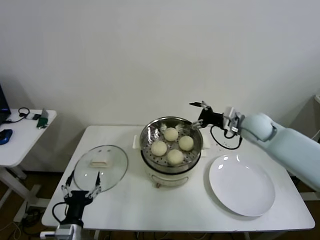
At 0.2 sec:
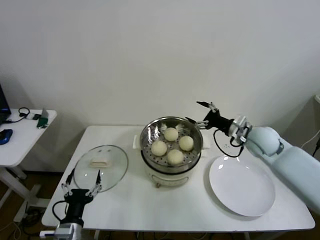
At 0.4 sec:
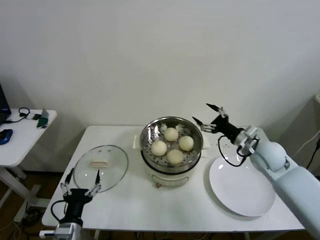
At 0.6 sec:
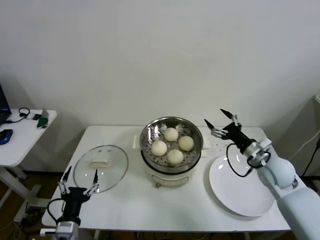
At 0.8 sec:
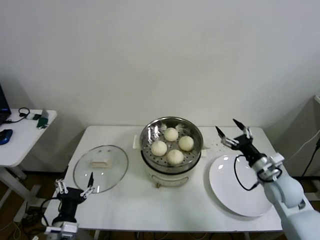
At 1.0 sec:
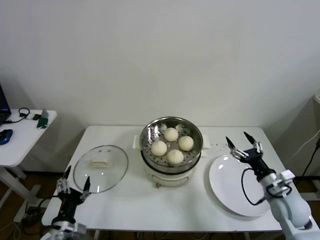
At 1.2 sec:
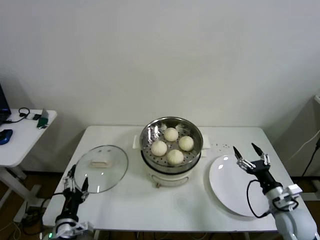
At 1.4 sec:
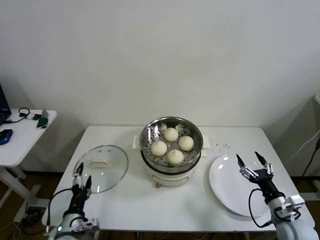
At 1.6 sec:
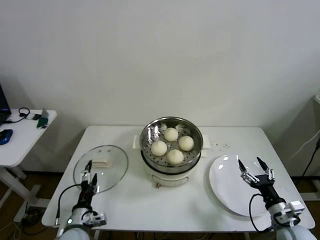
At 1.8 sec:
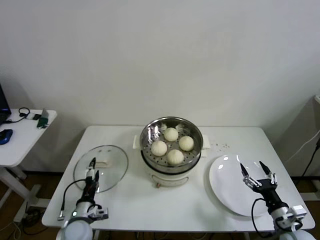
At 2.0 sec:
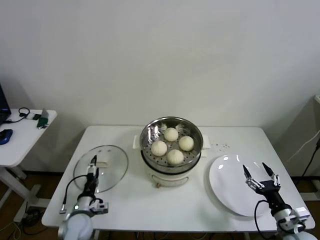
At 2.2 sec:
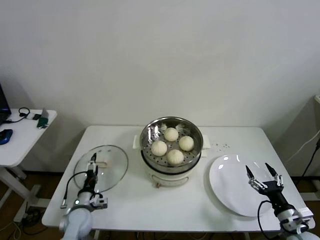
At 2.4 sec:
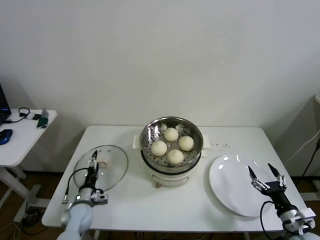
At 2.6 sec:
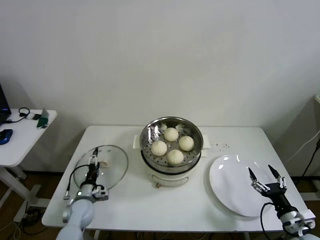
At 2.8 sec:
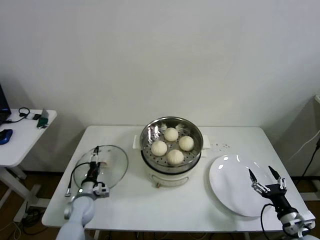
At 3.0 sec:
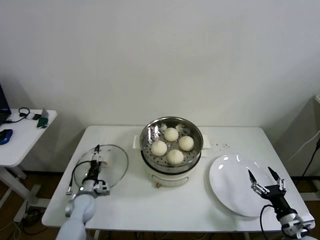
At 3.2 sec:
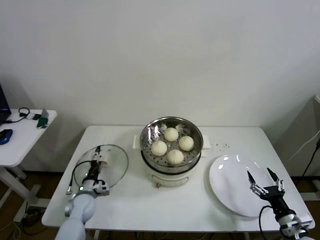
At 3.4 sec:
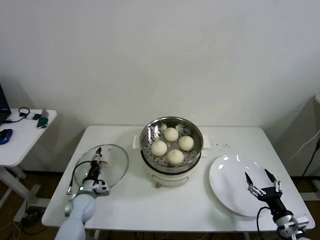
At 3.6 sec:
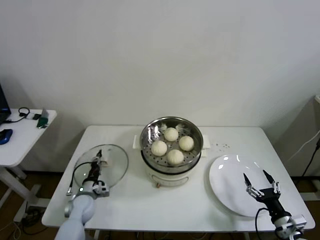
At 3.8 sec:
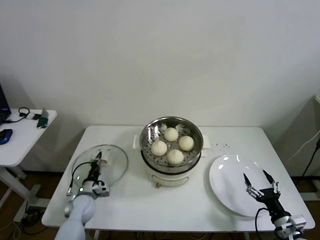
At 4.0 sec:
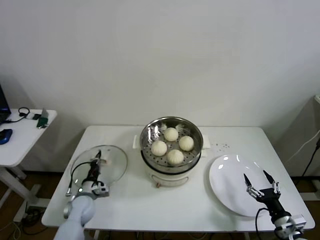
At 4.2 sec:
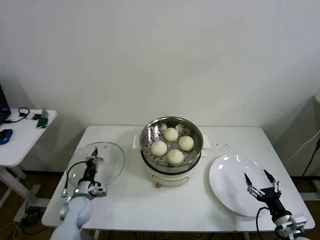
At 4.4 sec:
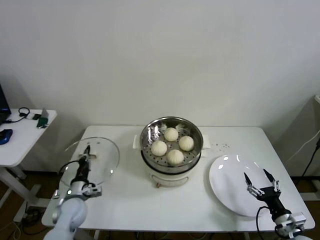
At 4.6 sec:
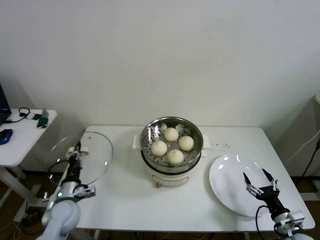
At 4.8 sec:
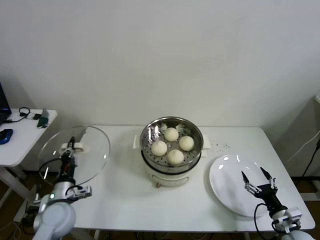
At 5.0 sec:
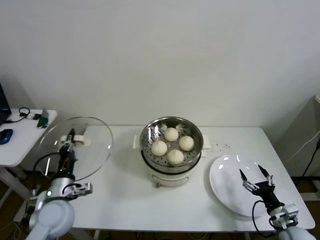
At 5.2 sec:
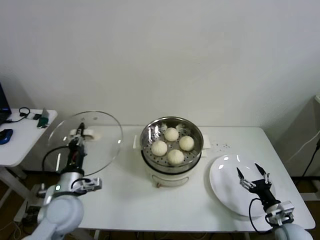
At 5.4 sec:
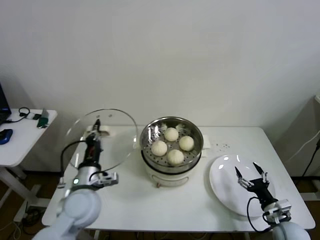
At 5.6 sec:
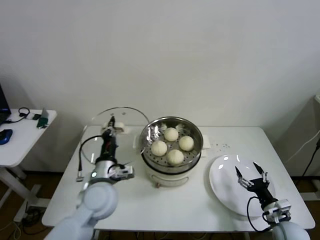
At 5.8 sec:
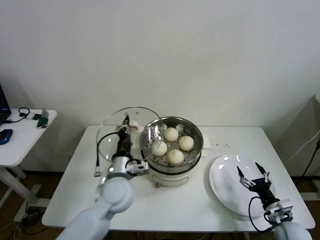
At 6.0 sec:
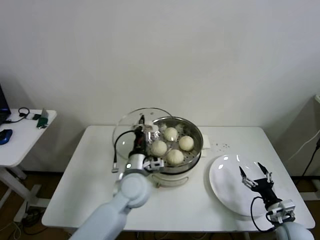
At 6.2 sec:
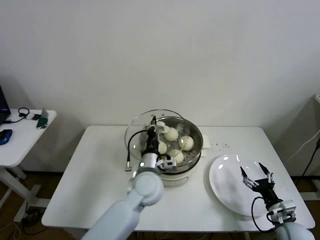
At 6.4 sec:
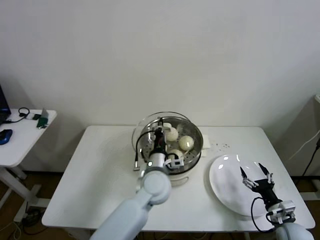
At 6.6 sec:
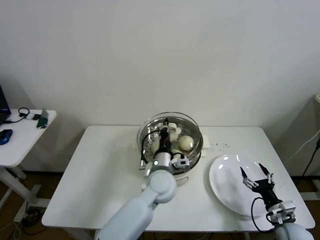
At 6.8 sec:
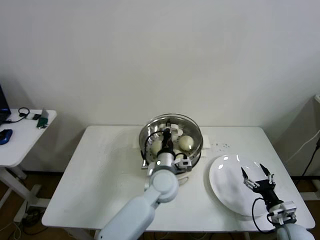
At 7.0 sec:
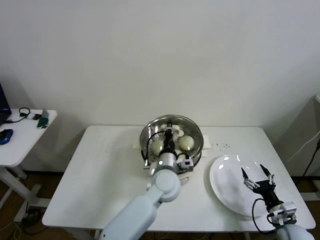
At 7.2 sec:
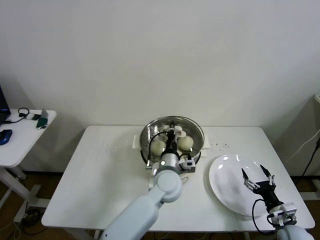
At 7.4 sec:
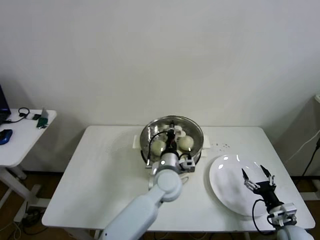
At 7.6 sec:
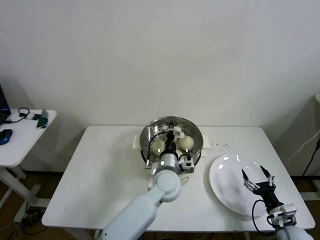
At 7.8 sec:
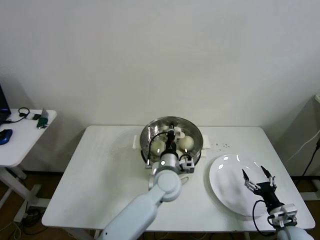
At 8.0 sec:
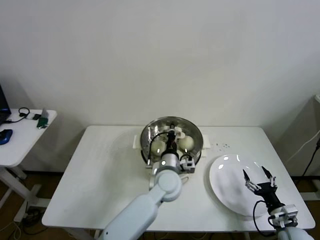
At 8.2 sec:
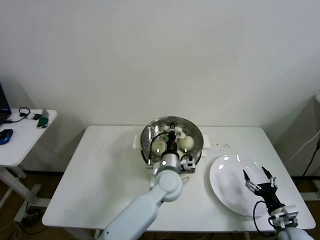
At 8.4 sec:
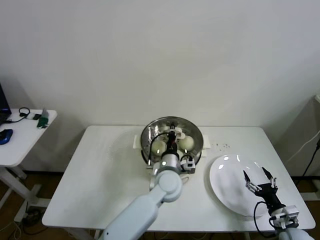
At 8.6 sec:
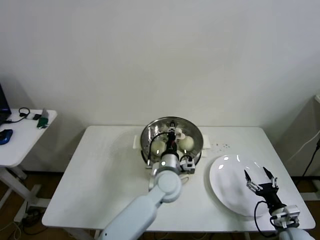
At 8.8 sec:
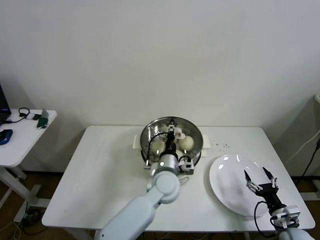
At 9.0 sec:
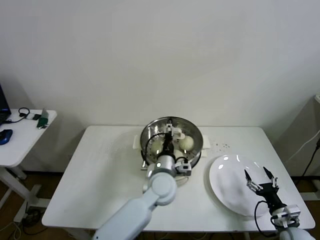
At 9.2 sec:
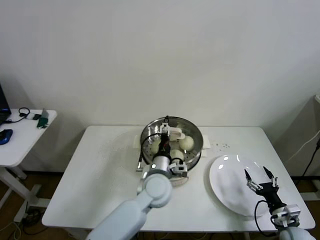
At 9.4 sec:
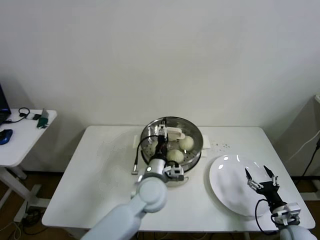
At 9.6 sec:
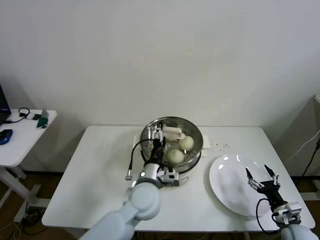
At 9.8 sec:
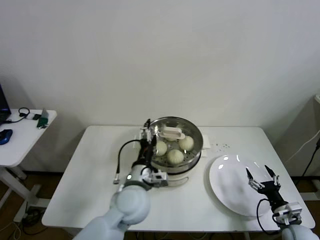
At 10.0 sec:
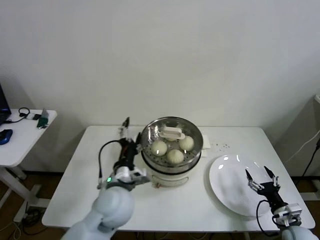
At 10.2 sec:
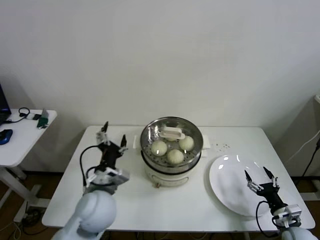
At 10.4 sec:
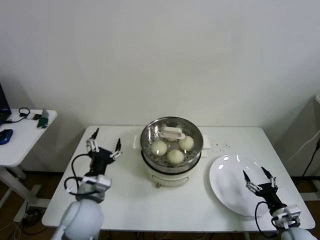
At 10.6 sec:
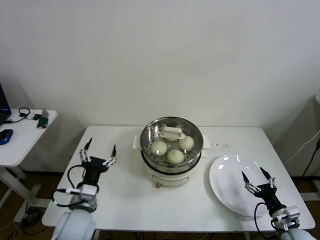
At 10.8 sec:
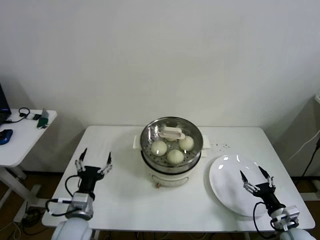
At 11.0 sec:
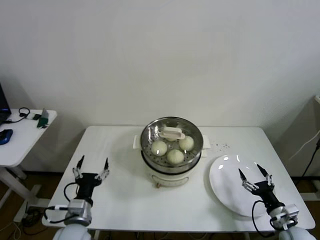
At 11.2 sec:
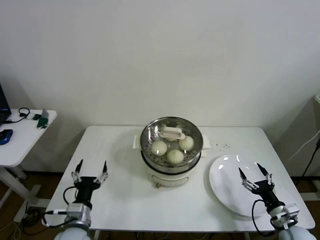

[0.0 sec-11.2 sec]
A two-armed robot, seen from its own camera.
Step, 0.0 sec to 3.6 sec: Grasp the pot lid with left gripper.
Step, 4.0 sec to 8.8 sec: Place the pot lid on the steamer with left gripper.
0.0 sec to 1.6 sec: The right gripper shifts approximately 35 cm backward and downward; the left gripper heads forward and downward, covering some 10 cm.
1.6 sec to 3.2 sec: The left gripper goes some 15 cm forward and downward.
3.2 sec to 4.8 sec: The left gripper shifts approximately 15 cm upward and backward, and closes.
4.8 sec to 6.4 sec: The left gripper moves to the right, approximately 30 cm.
6.4 sec to 8.0 sec: The grippers stay close to where they were, moving slightly.
8.0 sec to 9.6 sec: The left gripper goes approximately 10 cm to the left and backward, and opens.
9.6 sec to 11.2 sec: The left gripper travels to the left and backward by approximately 25 cm.

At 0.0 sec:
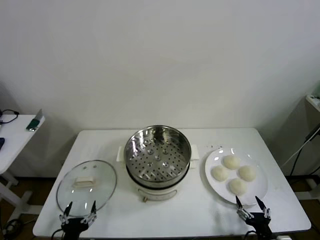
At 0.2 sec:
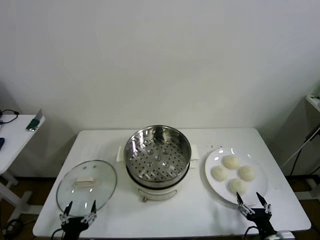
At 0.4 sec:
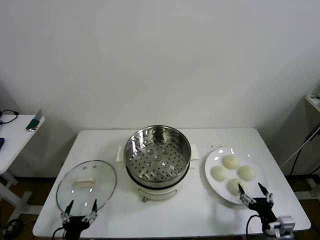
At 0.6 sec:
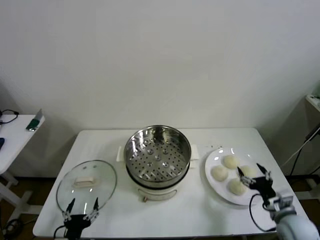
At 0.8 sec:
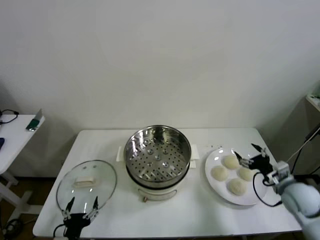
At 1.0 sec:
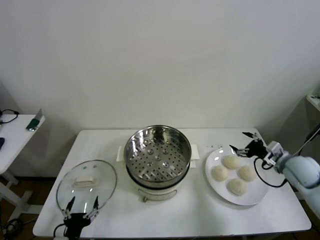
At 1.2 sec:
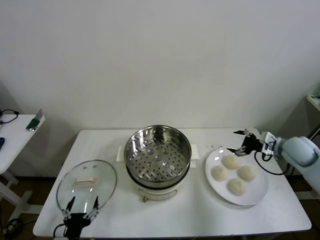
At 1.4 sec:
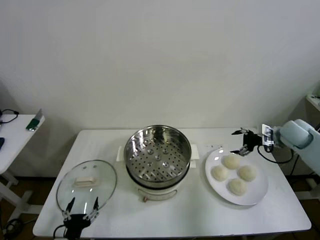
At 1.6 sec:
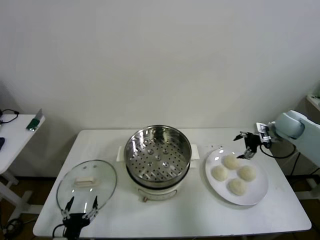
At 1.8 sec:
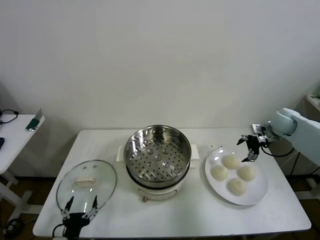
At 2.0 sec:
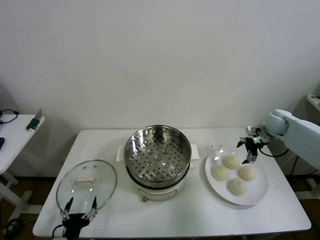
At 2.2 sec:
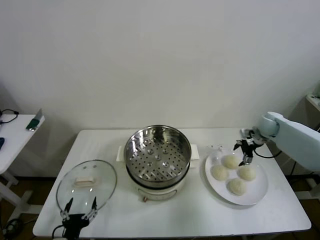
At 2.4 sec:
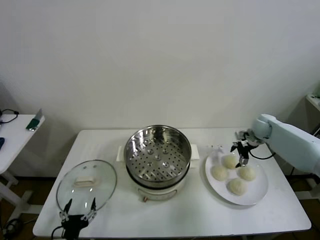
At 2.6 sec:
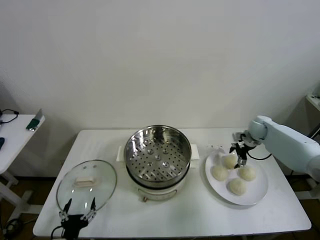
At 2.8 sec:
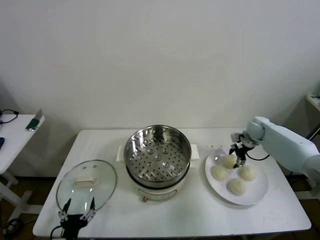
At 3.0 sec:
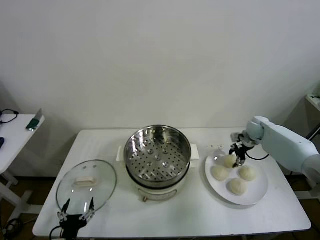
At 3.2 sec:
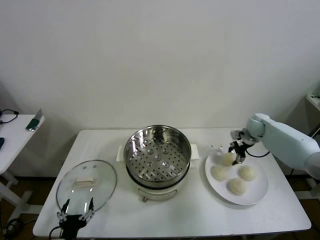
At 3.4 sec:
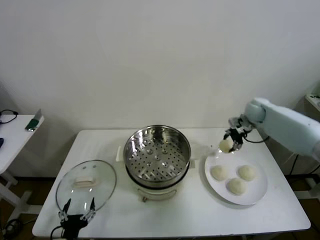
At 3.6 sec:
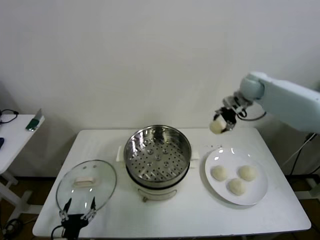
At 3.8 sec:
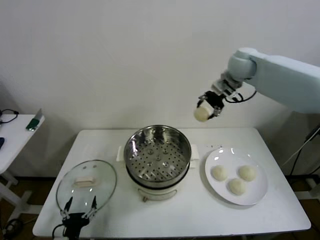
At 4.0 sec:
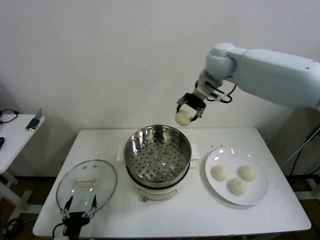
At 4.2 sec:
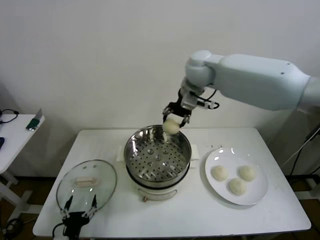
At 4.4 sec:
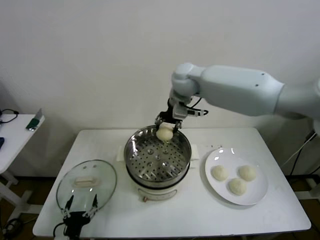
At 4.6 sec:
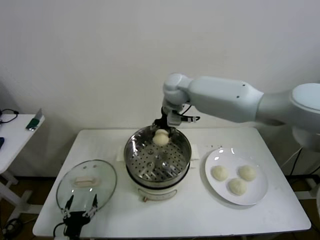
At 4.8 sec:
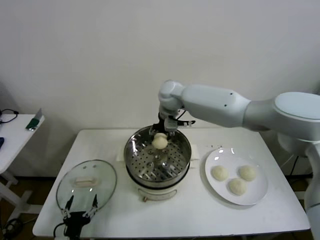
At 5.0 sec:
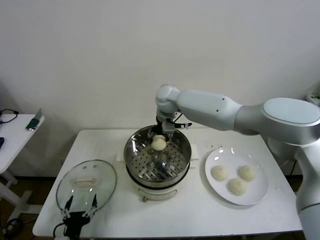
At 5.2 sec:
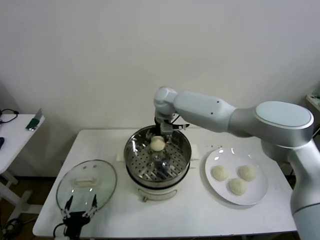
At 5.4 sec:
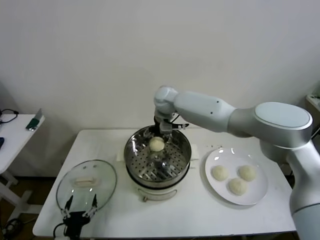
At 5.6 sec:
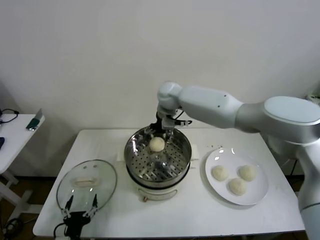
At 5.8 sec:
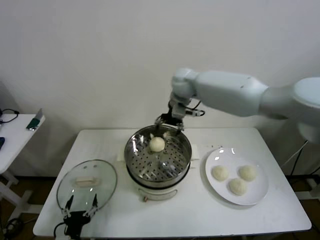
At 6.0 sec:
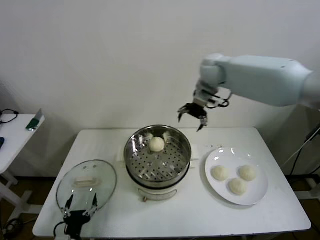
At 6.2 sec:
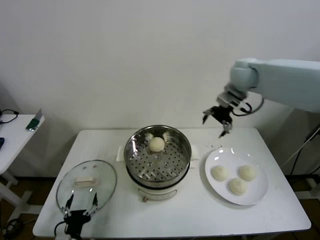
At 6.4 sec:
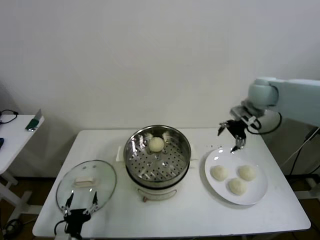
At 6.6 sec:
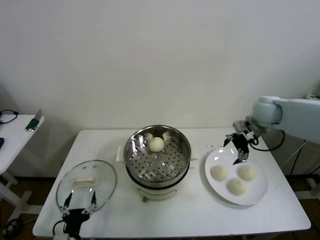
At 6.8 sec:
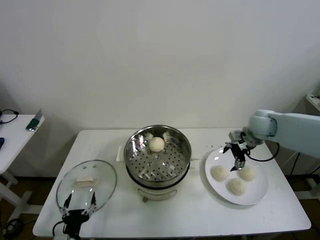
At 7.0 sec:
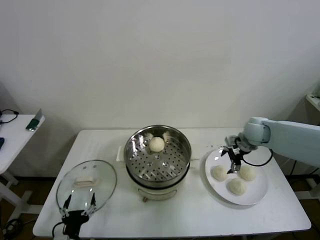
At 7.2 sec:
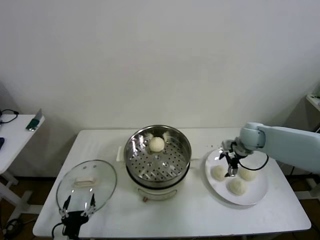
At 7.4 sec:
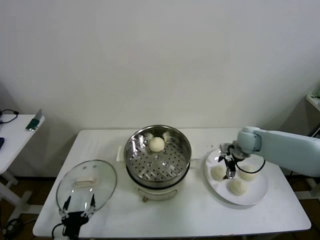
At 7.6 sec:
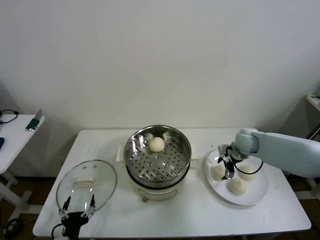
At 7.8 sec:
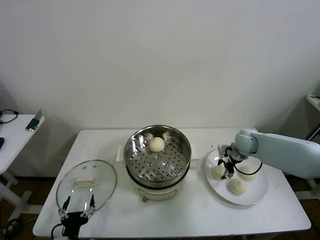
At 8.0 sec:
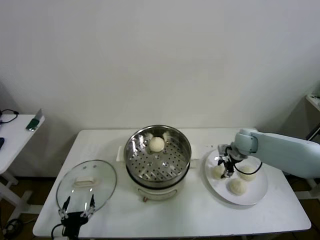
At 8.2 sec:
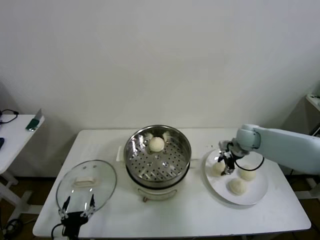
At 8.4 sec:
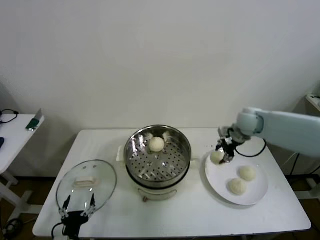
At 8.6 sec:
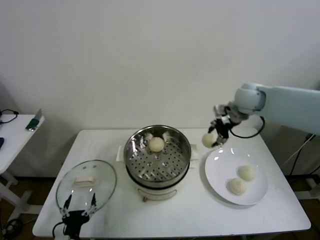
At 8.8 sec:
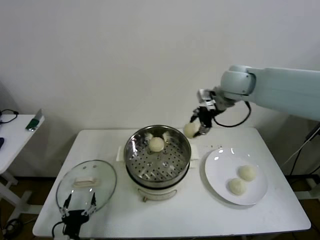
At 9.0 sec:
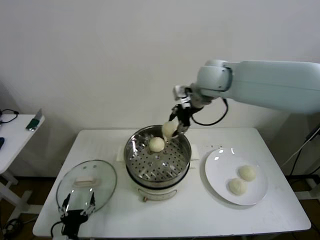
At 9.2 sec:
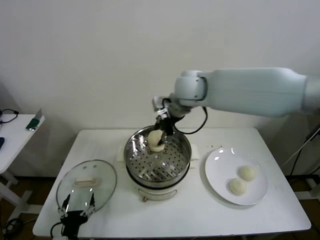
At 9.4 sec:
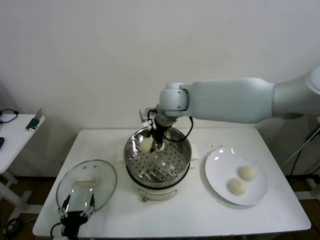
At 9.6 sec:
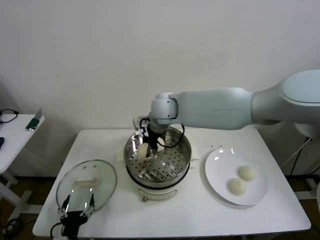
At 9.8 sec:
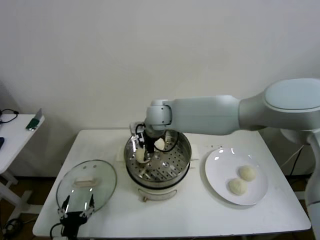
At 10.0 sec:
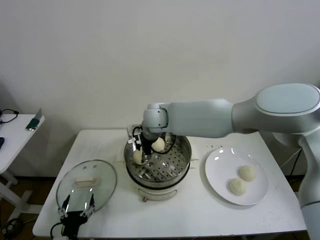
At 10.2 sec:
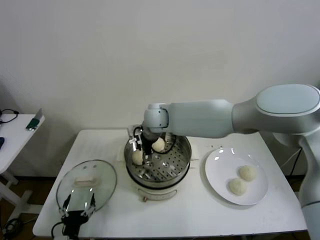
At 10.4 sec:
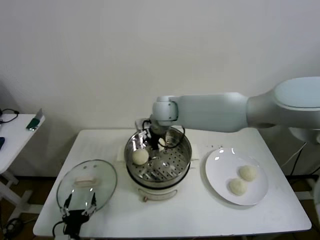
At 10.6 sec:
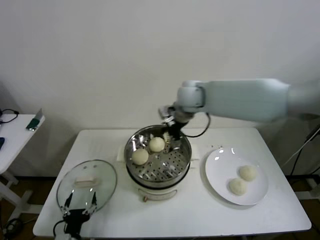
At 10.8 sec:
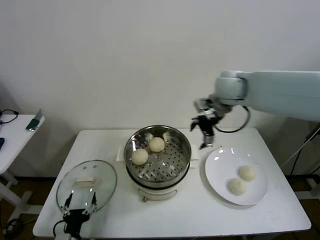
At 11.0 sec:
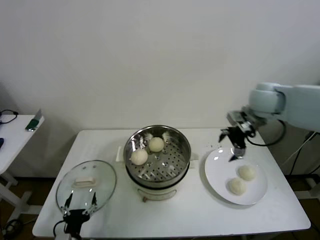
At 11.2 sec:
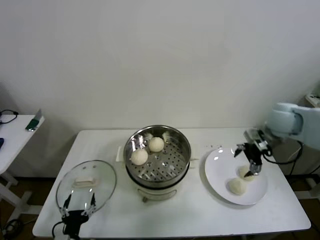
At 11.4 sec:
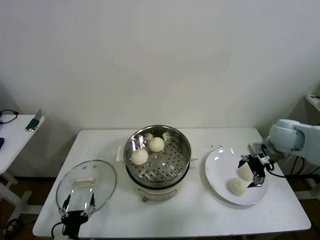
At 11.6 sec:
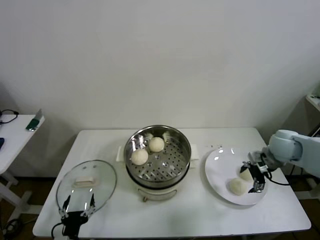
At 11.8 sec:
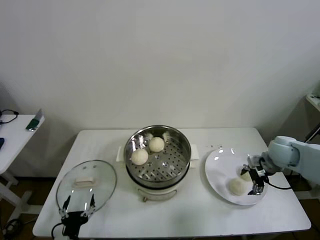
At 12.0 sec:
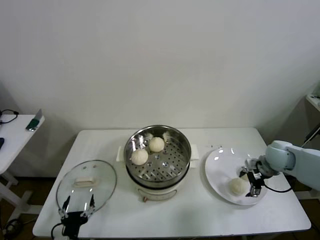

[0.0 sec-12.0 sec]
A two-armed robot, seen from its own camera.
Step, 0.0 sec to 3.0 sec: Grasp the baozi in the plate with right gripper.
Step, 3.2 sec to 5.6 sec: Place the baozi on the steamer with right gripper.
Step, 5.8 sec to 7.8 sec: Grasp the baozi in the plate with right gripper.
Step, 8.0 sec to 10.2 sec: Place the baozi on the steamer with right gripper.
1.6 sec to 3.0 sec: The right gripper goes approximately 10 cm downward and forward, and closes up.
3.0 sec to 4.4 sec: The right gripper shifts approximately 40 cm to the left and upward.
4.4 sec to 6.0 sec: The right gripper moves to the right, about 15 cm, and opens up.
6.0 sec to 7.6 sec: The right gripper travels downward by about 25 cm.
7.6 sec to 9.0 sec: The right gripper travels upward and to the left by approximately 35 cm, and closes up.
9.0 sec to 10.4 sec: The right gripper goes roughly 10 cm downward and to the left, and opens.
10.4 sec to 12.0 sec: The right gripper moves to the right and downward, approximately 40 cm.
